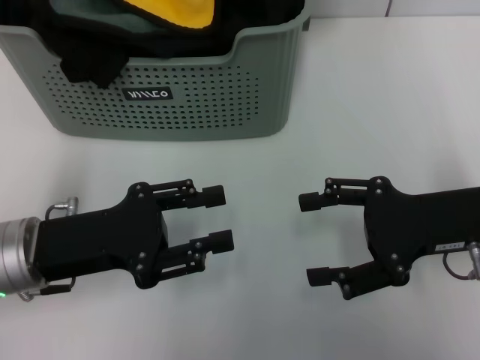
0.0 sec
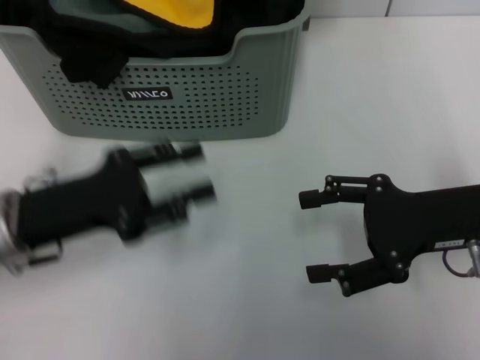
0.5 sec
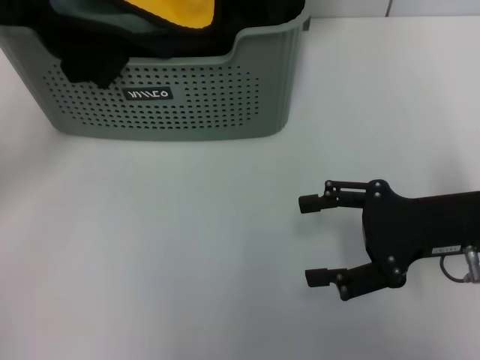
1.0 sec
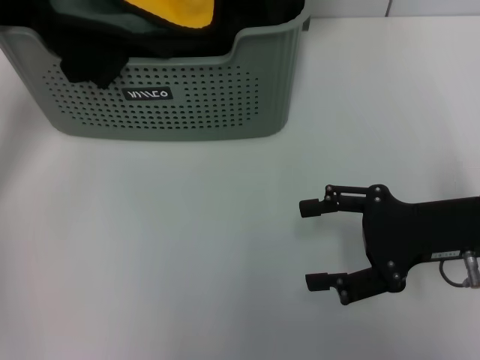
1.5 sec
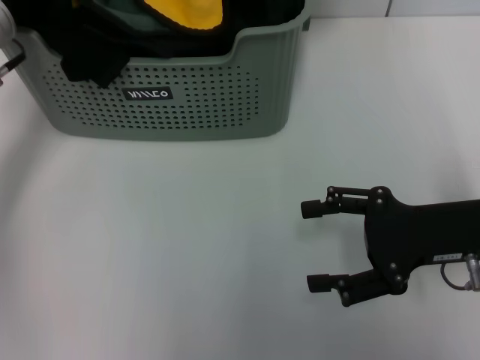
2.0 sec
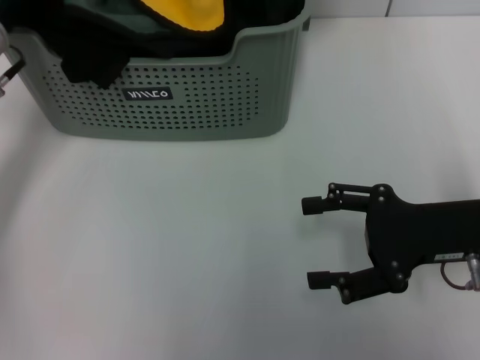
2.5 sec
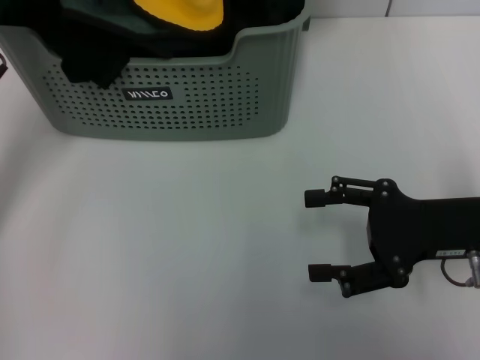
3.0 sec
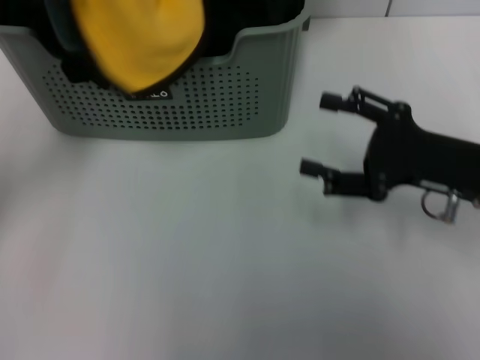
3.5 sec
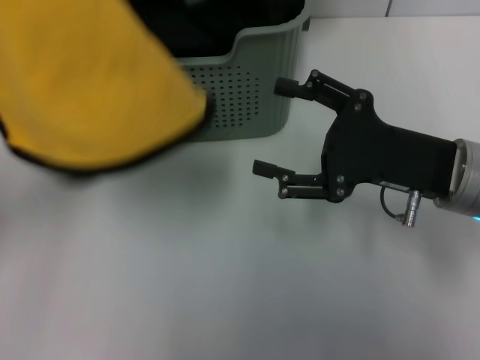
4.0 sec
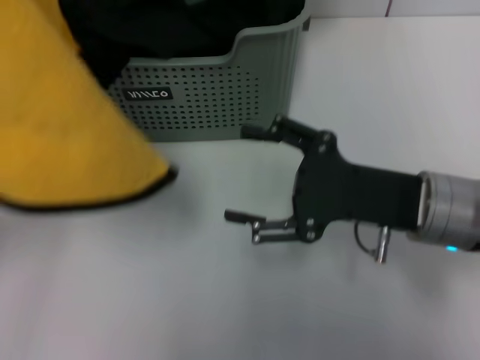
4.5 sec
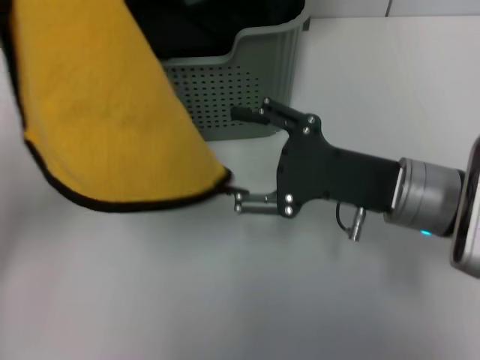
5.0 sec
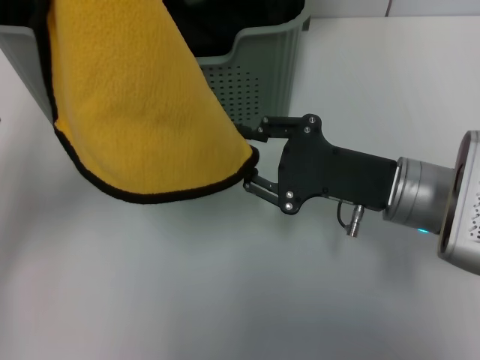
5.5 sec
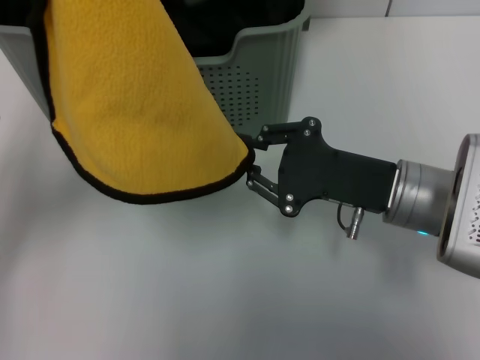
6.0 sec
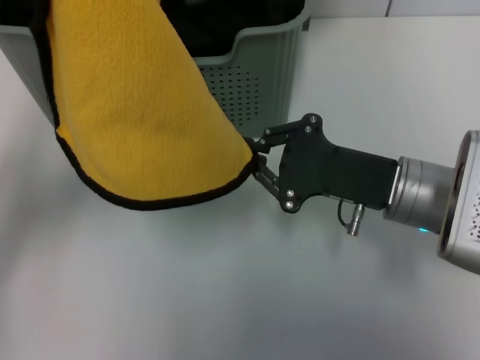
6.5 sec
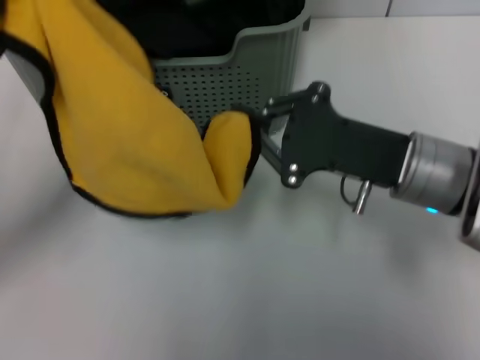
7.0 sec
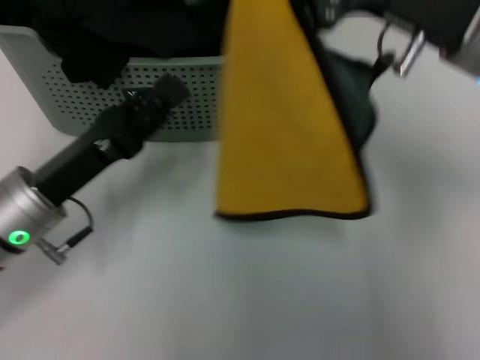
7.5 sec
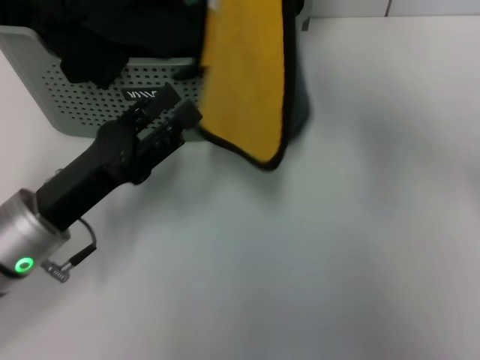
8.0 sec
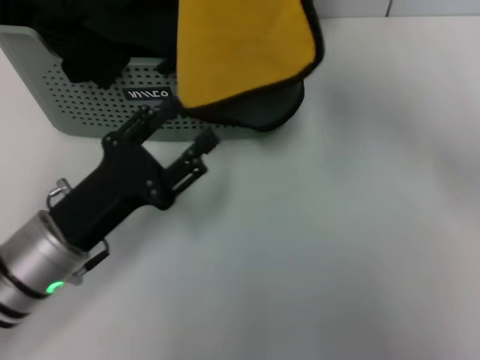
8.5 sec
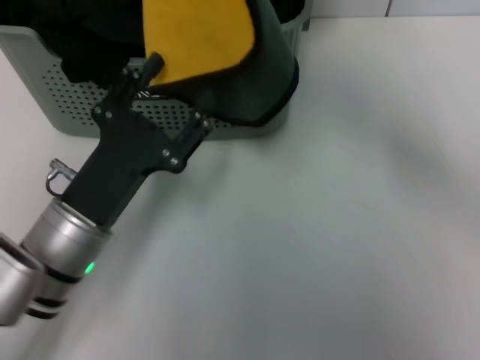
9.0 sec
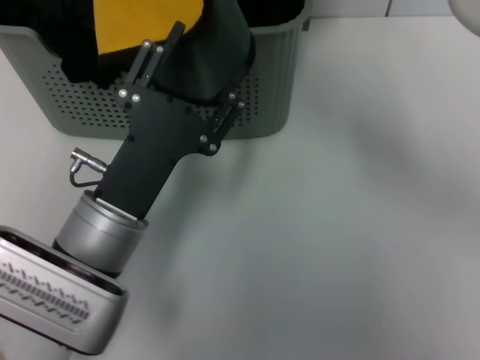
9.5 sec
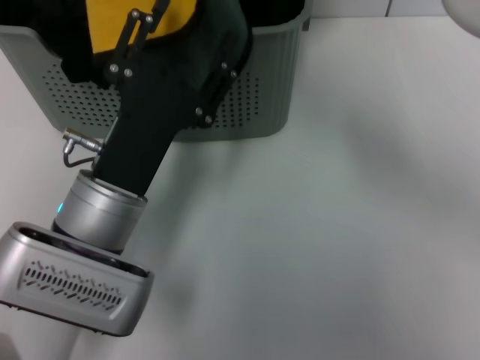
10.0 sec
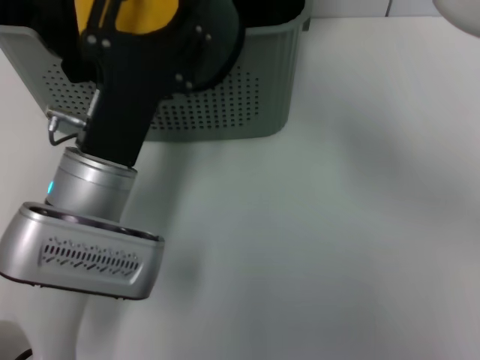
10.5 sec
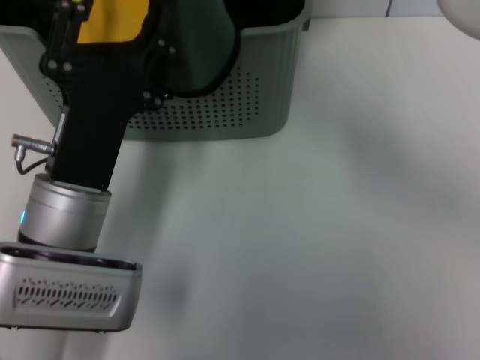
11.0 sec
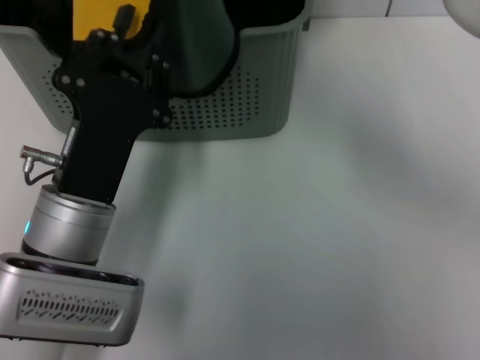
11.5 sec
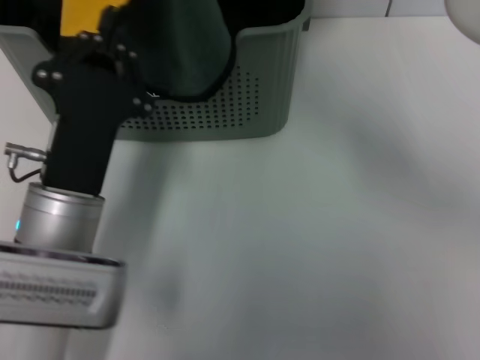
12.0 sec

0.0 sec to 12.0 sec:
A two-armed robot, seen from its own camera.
Task of the whole recording: pick up the towel from the storage box and lay it flat on the table.
Step, 0.0 sec to 1.5 sec: Pick up a towel with the left gripper.
Step, 2.0 sec to 6.0 sec: Spread the towel flat with the left gripper.
0.0 sec to 2.0 sec: The left gripper shifts about 15 cm forward.
2.0 sec to 4.0 sec: The left gripper heads backward, covering some 15 cm, and closes its fingers.
4.0 sec to 6.0 sec: The right gripper closes up. Meanwhile the left gripper ends up roughly 5 cm from where it was.
6.0 sec to 8.0 sec: The right gripper heads upward, covering about 20 cm. The left gripper shifts roughly 10 cm downward, and opens.
8.0 sec to 10.0 sec: The right gripper heads to the left and upward, covering roughly 15 cm. The left gripper moves to the right, roughly 10 cm.
10.0 sec to 12.0 sec: The left gripper closes its fingers.

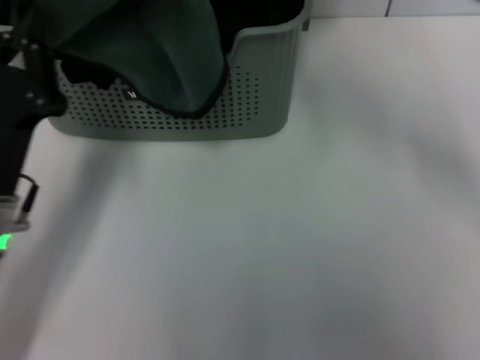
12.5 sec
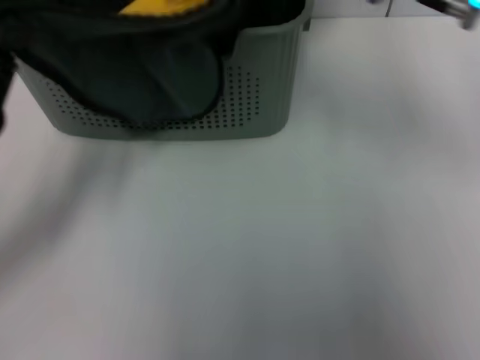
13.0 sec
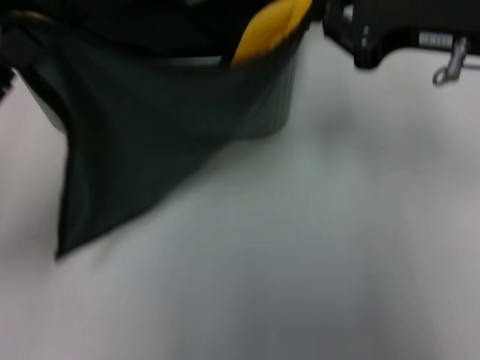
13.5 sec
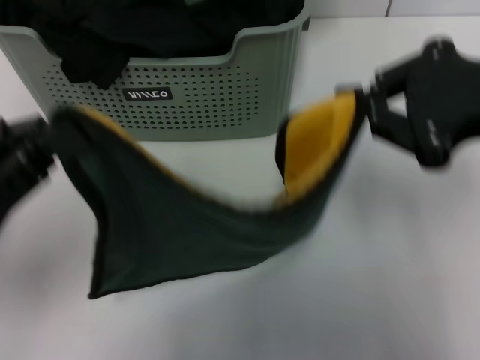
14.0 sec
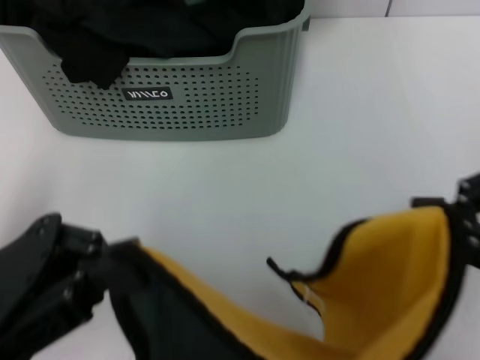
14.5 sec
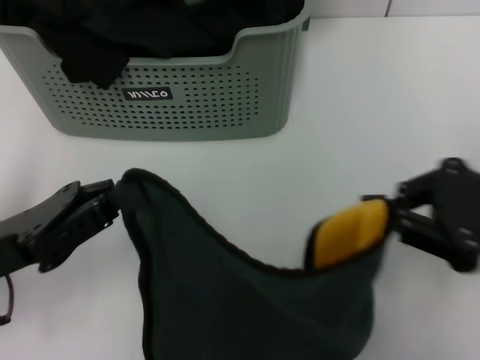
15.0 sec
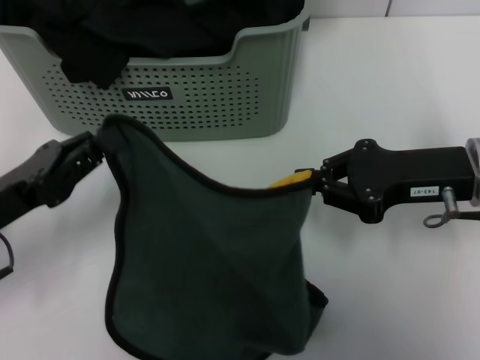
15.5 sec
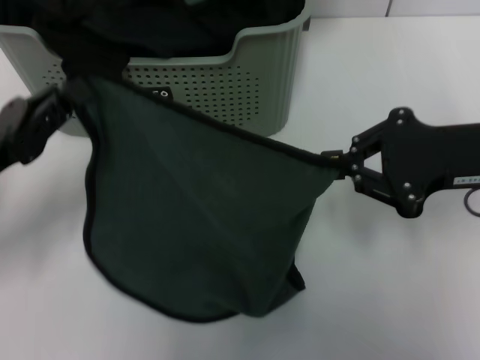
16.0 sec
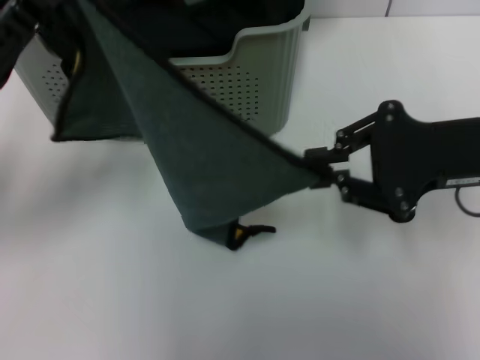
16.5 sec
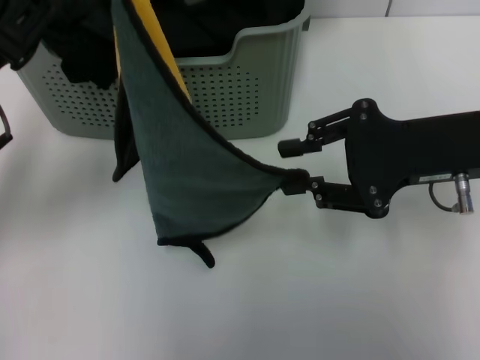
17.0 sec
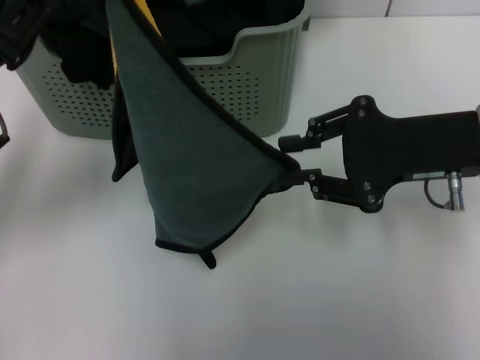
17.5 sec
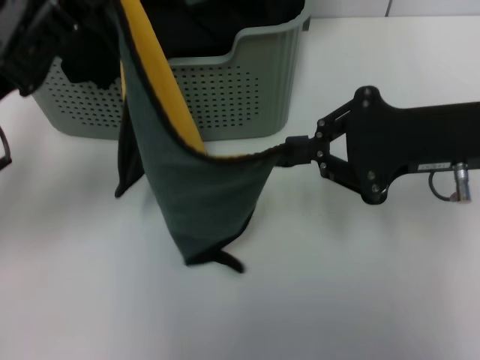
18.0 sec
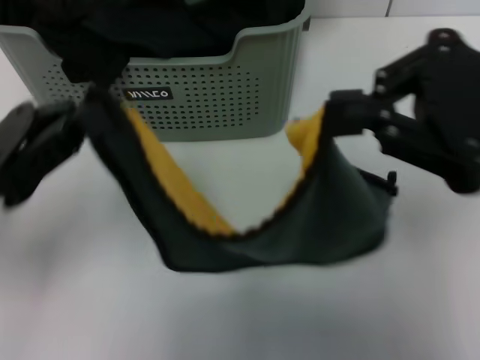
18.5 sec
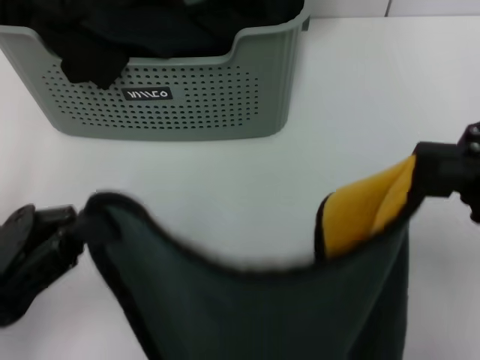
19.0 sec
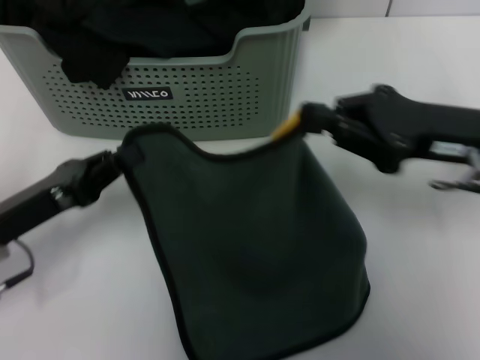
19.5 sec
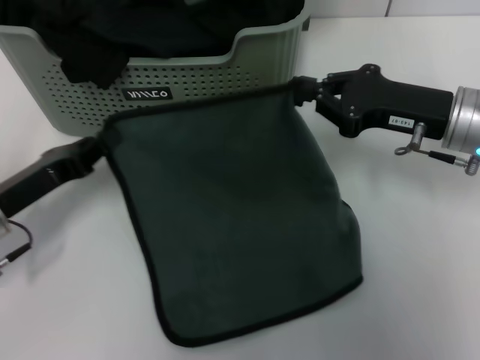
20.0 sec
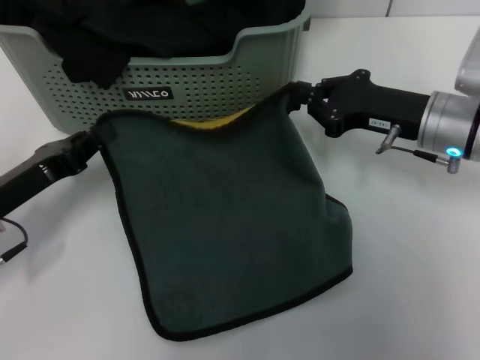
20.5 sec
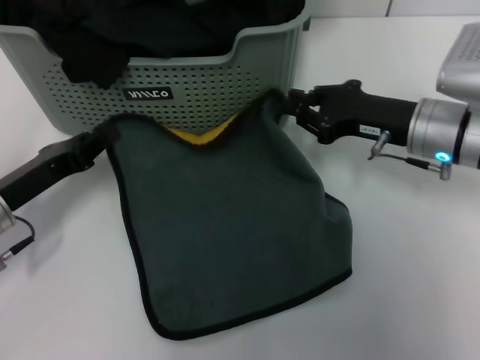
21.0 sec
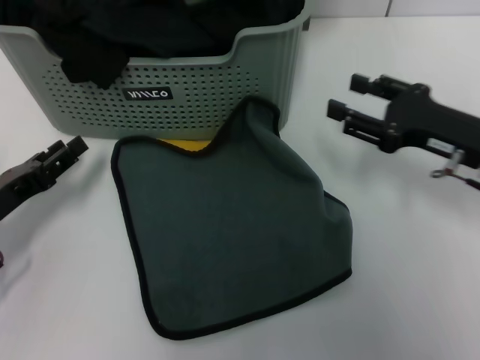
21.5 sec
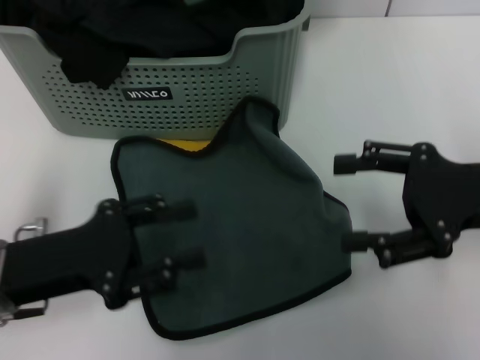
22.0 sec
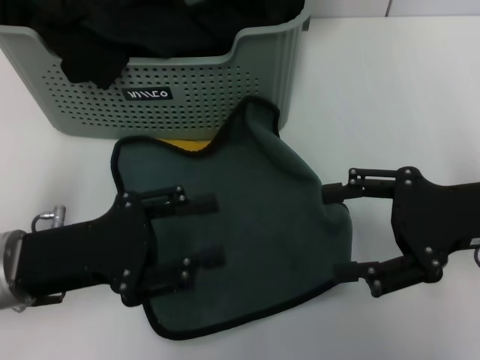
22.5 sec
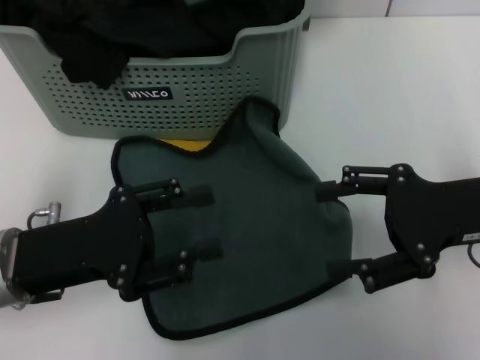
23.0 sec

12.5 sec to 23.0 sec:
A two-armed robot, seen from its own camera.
Task of the whole recording: pick up the towel from the storage box and lay it flat on the table.
Step, 12.5 sec to 21.0 sec: Spread the towel flat with the right gripper.
12.5 sec to 14.5 sec: The left gripper heads upward and backward, covering approximately 10 cm, while the right gripper heads backward and to the right, covering some 25 cm.
14.5 sec to 16.5 sec: The right gripper goes approximately 15 cm forward and downward. Meanwhile the left gripper is displaced forward by about 10 cm.
16.5 sec to 19.0 sec: The right gripper heads backward and upward, covering some 10 cm; the left gripper moves backward, roughly 10 cm.
19.0 sec to 21.0 sec: The right gripper is displaced forward, downward and to the left by approximately 25 cm, while the left gripper travels forward and downward by roughly 15 cm.
21.0 sec to 23.0 sec: The right gripper shifts approximately 10 cm backward, to the right and upward, and opens its fingers; the left gripper goes some 5 cm backward and to the right, and opens.

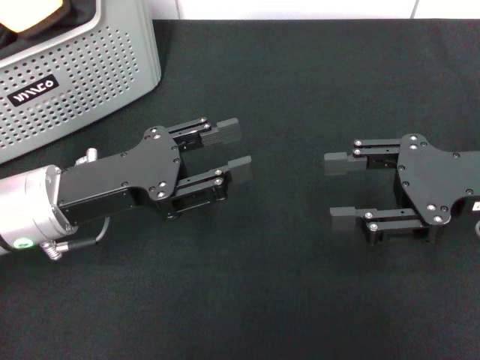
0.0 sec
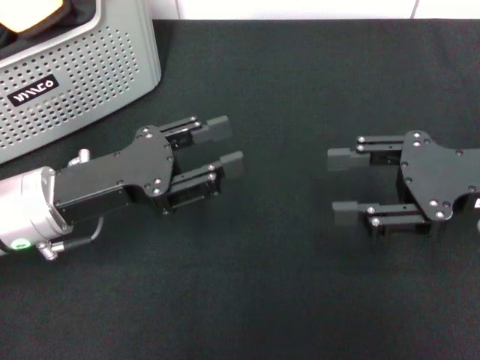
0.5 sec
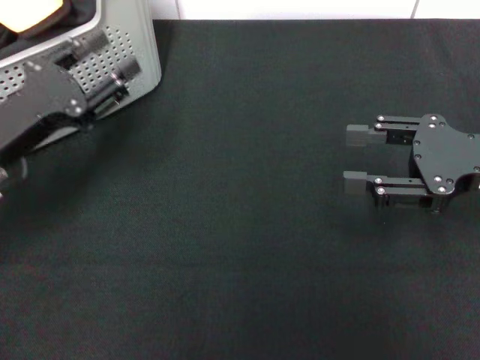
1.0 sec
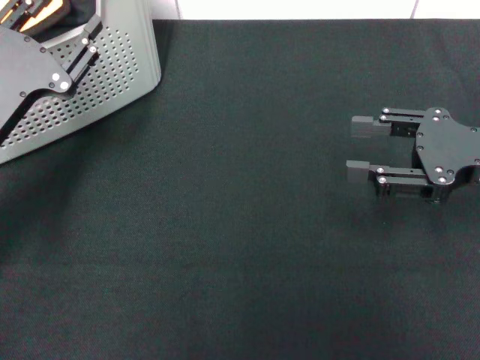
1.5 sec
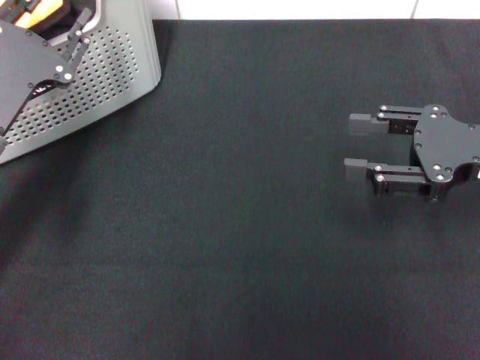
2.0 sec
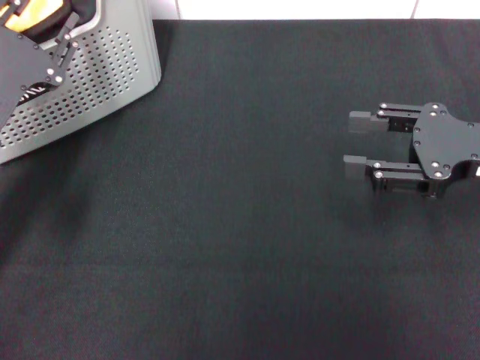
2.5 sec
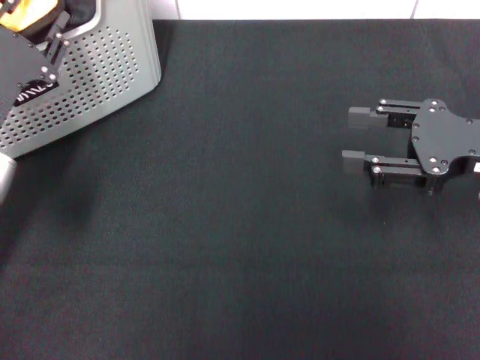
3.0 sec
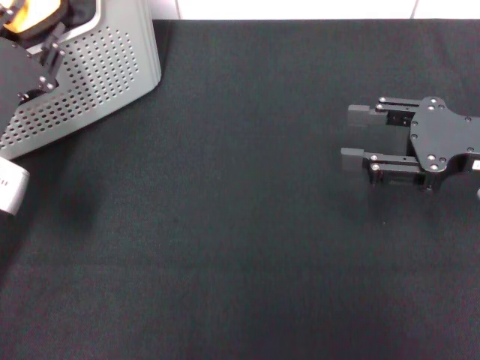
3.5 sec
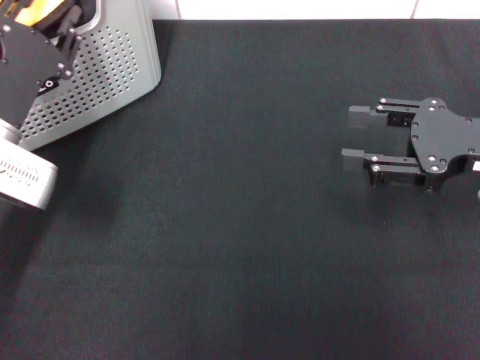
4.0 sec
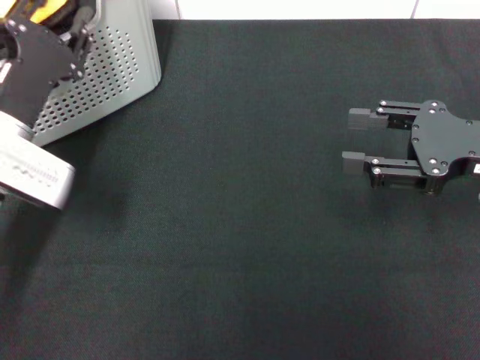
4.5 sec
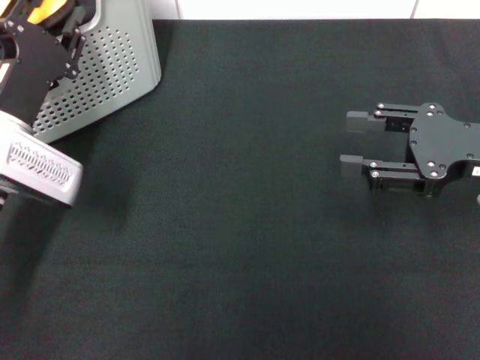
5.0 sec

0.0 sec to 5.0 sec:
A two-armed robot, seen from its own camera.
Task of the whole recording: pick up the towel from the storage box and lay it flat on the black tablecloth.
0.0 sec to 2.5 sec: The left gripper heads to the left, covering some 5 cm.
